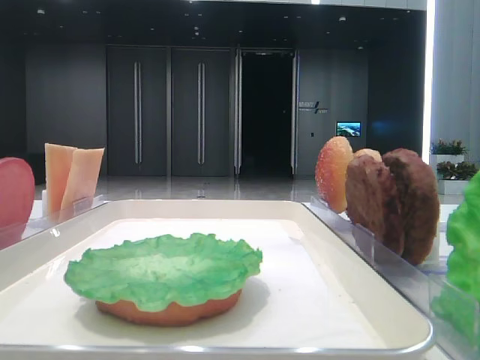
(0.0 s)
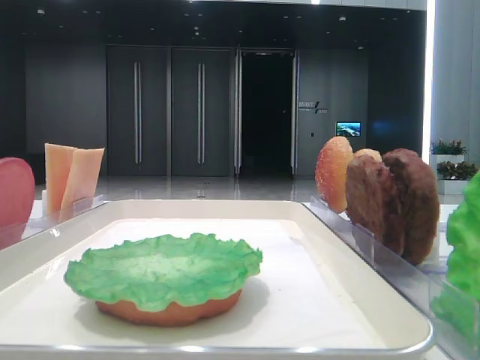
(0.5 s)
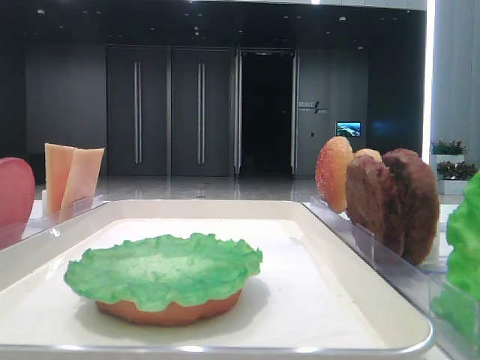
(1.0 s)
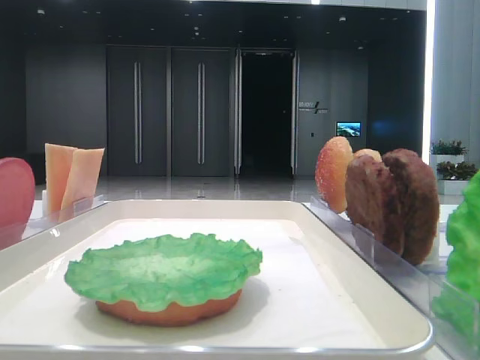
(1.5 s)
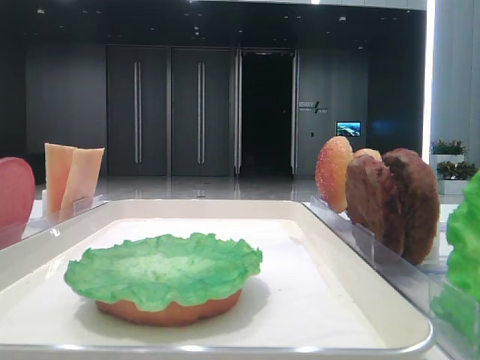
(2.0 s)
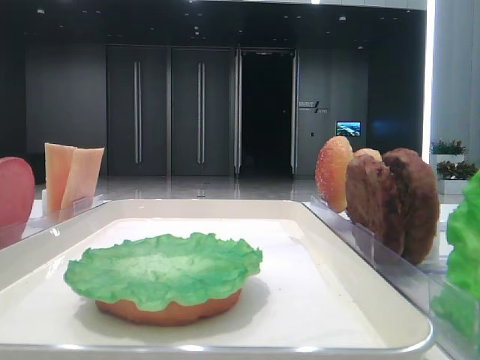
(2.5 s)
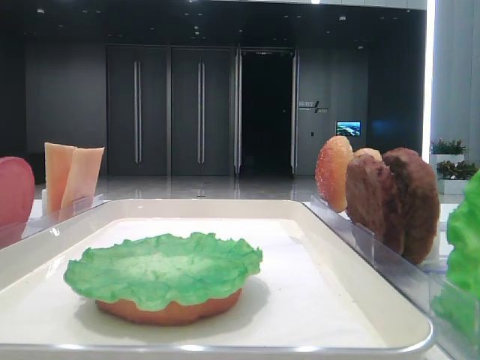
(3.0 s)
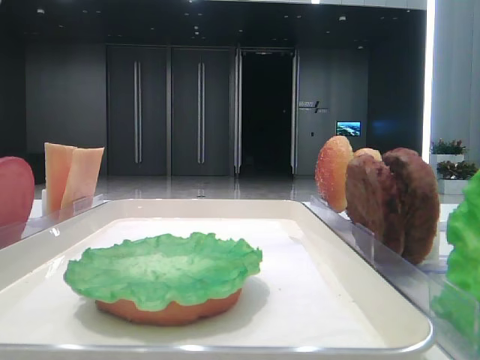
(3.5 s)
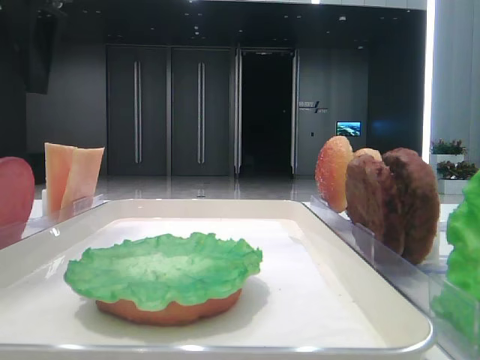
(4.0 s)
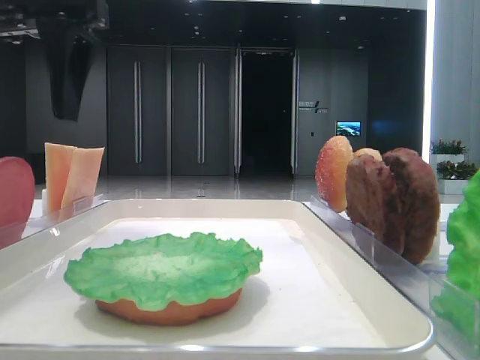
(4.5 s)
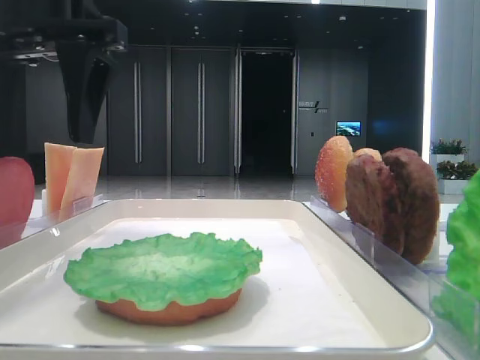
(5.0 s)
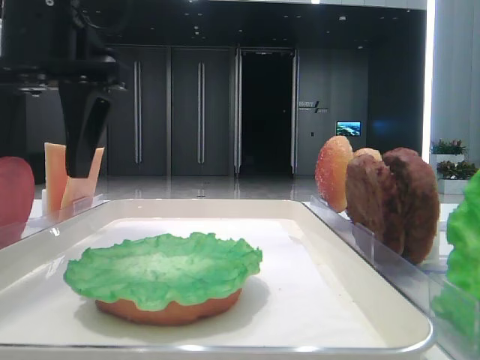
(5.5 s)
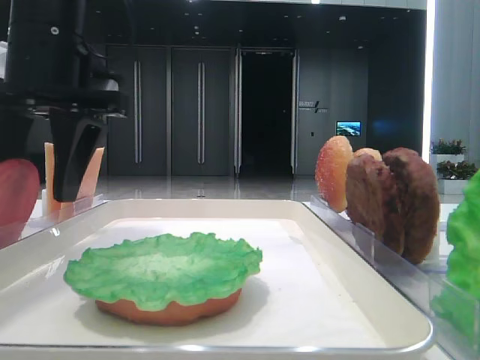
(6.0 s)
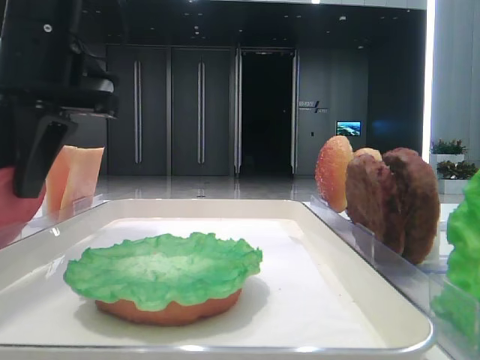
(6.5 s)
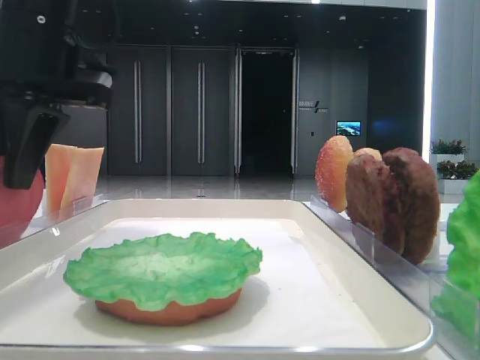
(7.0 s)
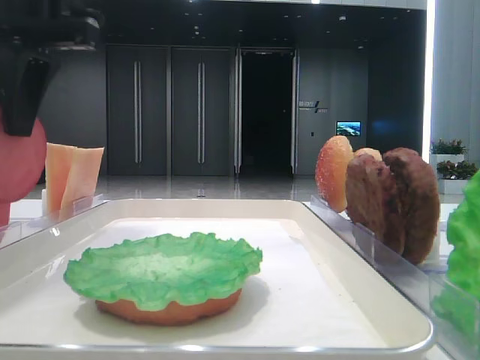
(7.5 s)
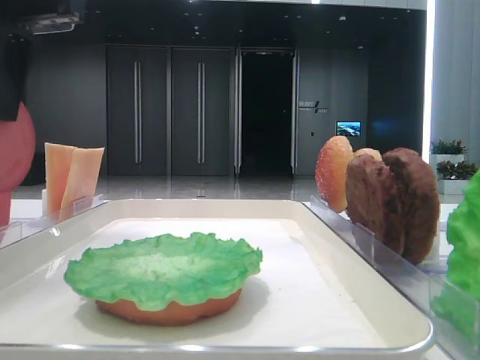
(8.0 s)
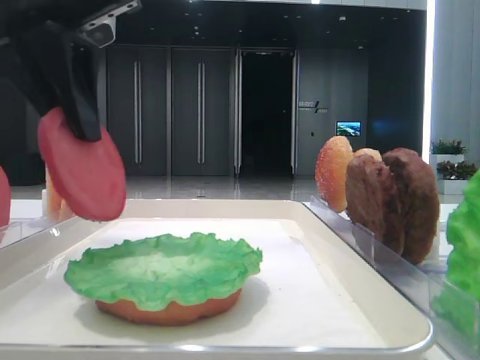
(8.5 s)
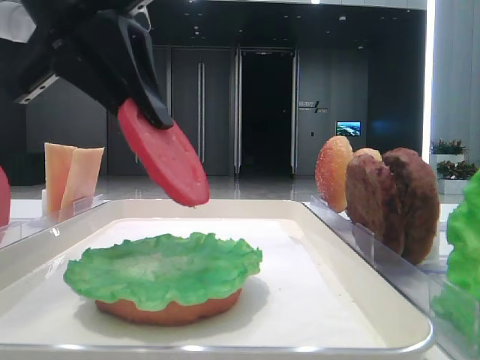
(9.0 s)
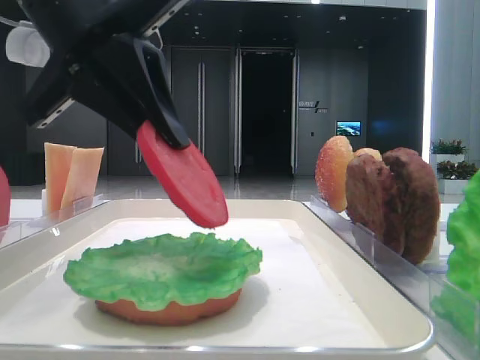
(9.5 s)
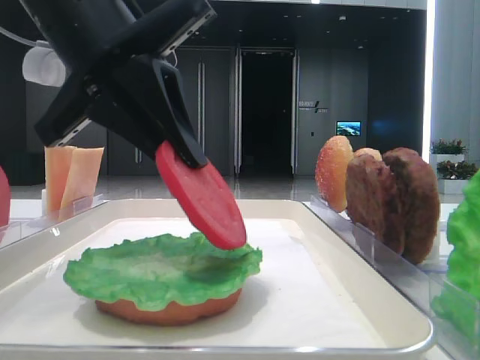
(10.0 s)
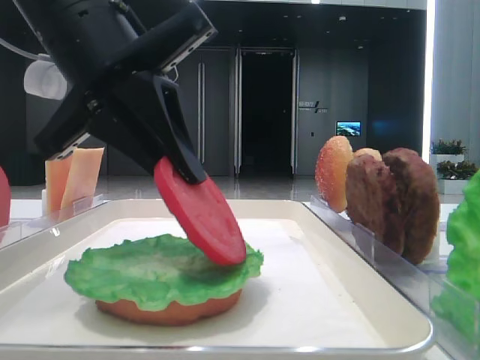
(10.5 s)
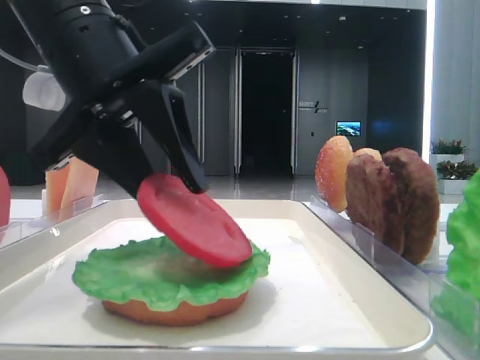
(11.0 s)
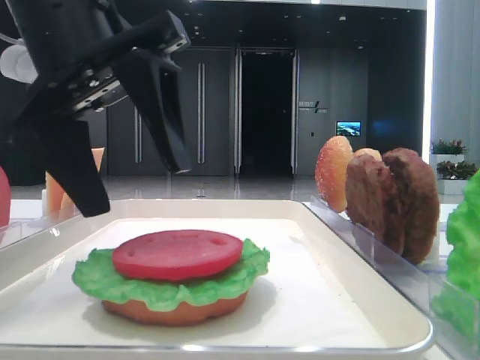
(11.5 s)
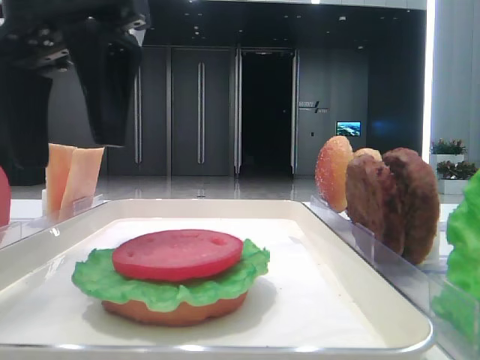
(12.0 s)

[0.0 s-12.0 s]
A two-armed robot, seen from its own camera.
Step, 0.0 to 6.5 s: Pick up the tomato slice with the left hand.
Step, 7.0 to 11.0 s: Place the tomato slice on the lettuce leaf with the left hand.
2.0 to 4.0 s: The left gripper heads forward and to the right, covering approximately 20 cm.
4.0 to 6.0 s: The left gripper goes some 10 cm downward and to the right.
6.0 to 8.0 s: The left gripper heads upward, covering about 5 cm, and closes its fingers.
8.0 to 10.0 s: The left gripper shifts roughly 10 cm to the right and downward.
10.0 to 12.0 s: The left gripper opens its fingers.

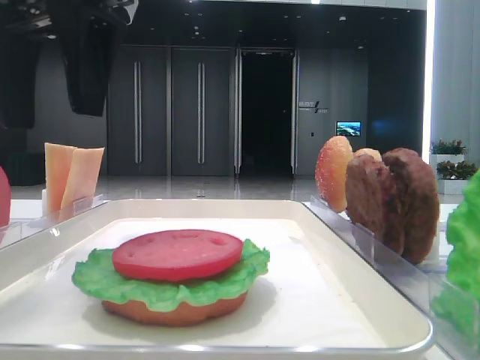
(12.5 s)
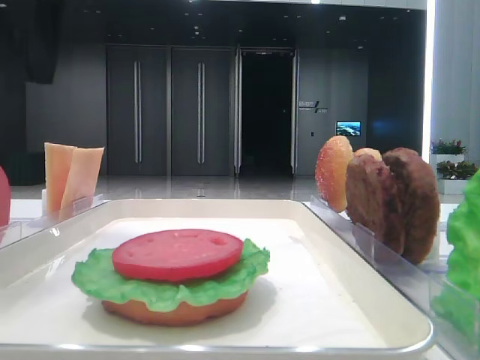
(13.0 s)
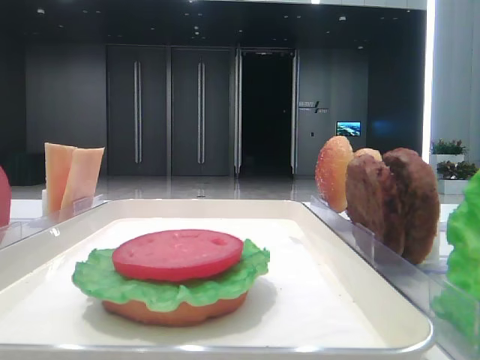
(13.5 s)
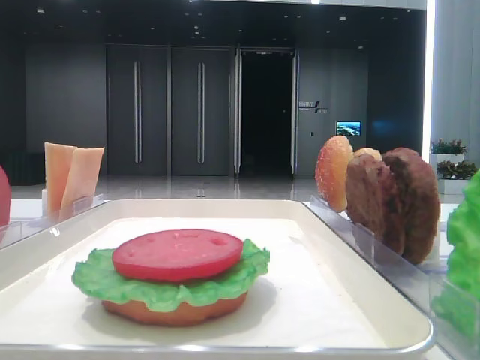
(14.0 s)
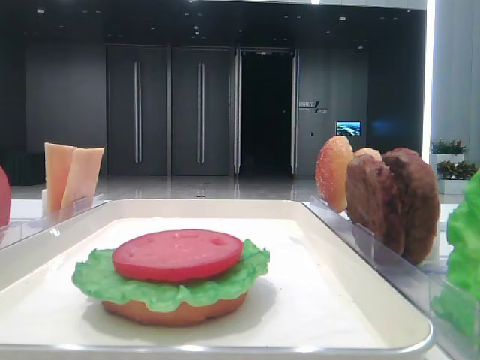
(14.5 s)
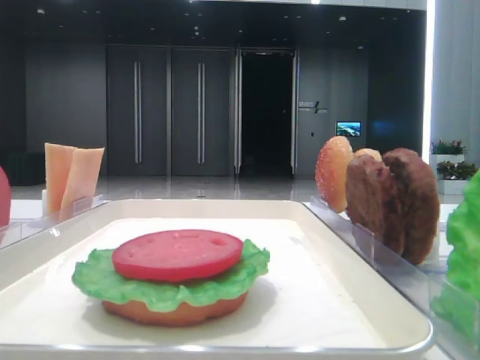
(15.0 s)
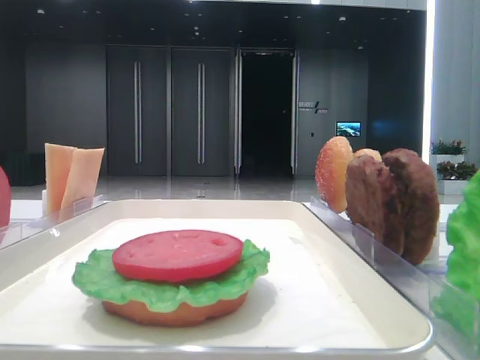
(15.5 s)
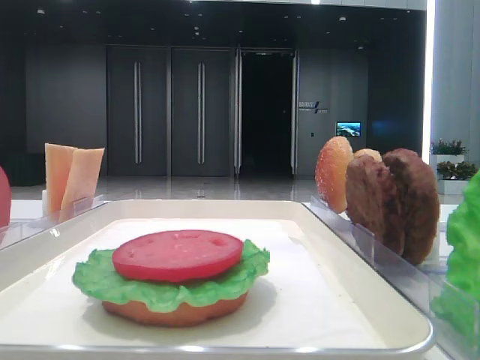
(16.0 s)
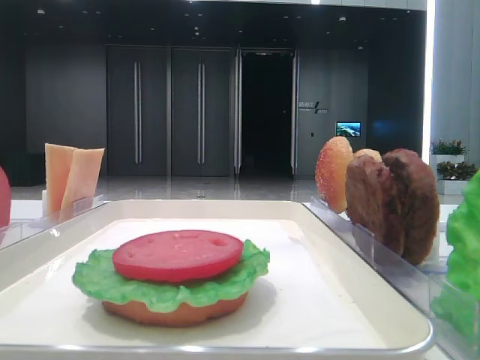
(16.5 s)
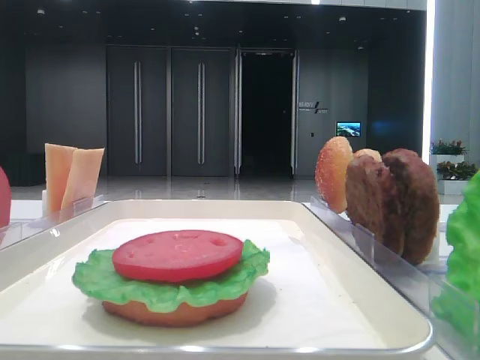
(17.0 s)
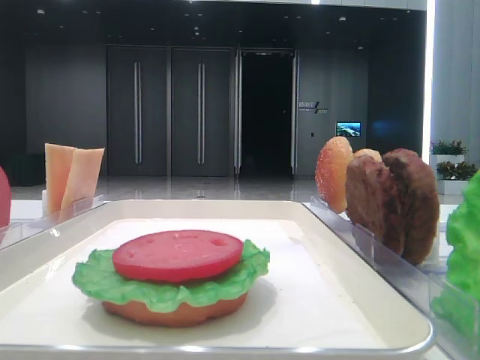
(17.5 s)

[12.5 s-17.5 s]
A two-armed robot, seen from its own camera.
12.5 to 15.0 s: The left gripper is displaced to the left and backward by about 25 cm.

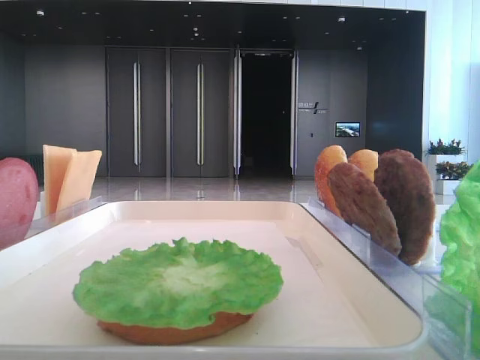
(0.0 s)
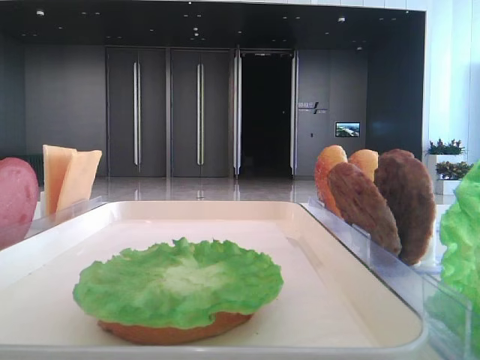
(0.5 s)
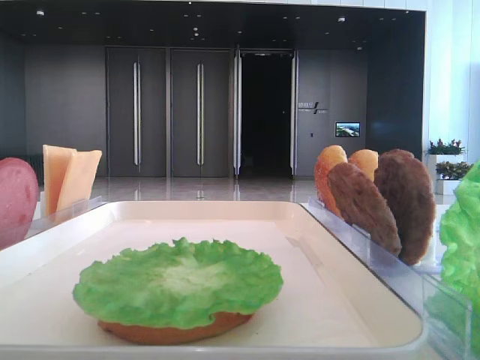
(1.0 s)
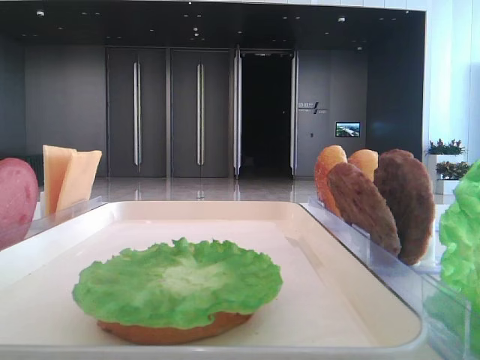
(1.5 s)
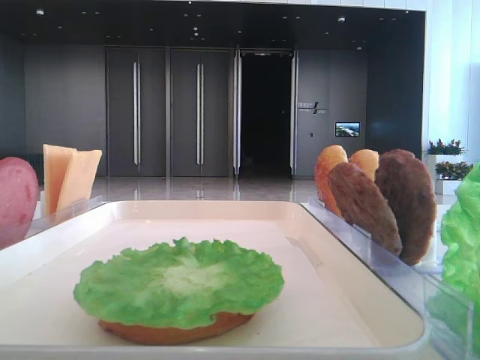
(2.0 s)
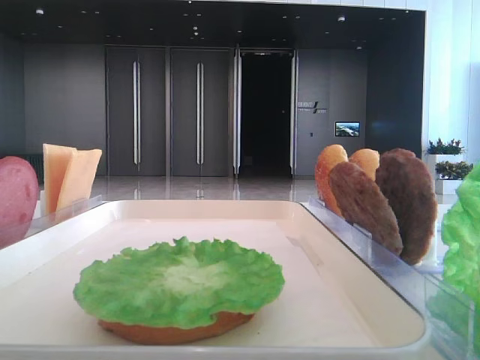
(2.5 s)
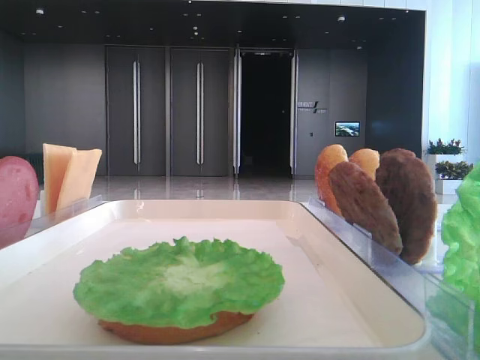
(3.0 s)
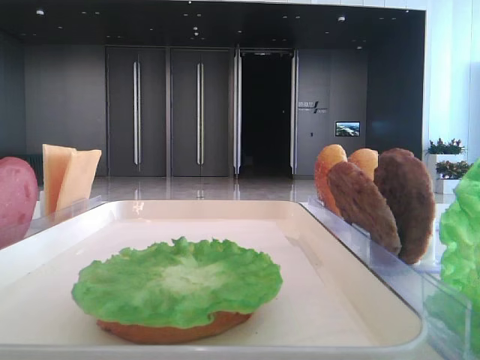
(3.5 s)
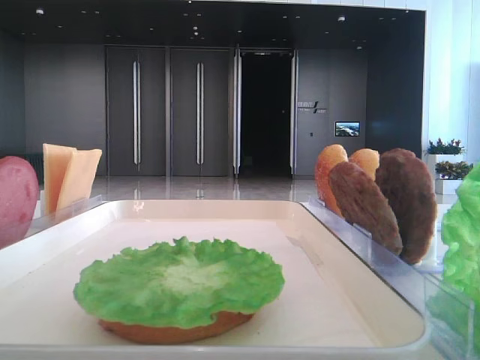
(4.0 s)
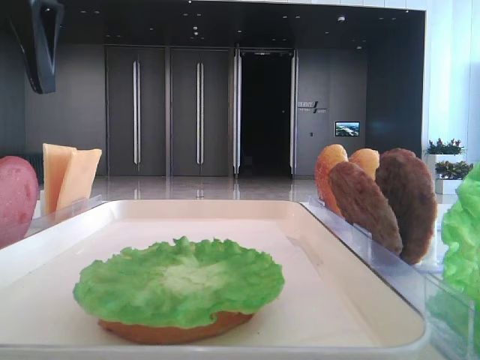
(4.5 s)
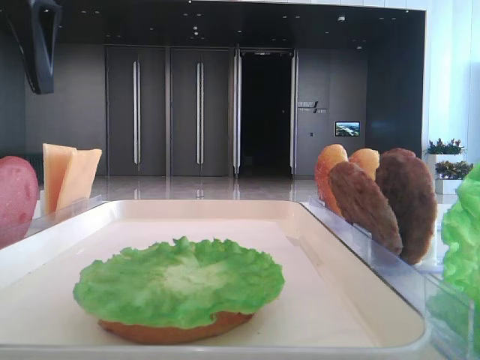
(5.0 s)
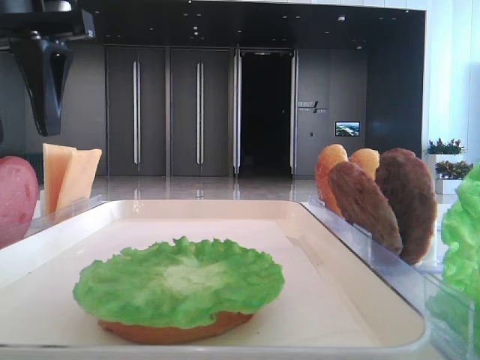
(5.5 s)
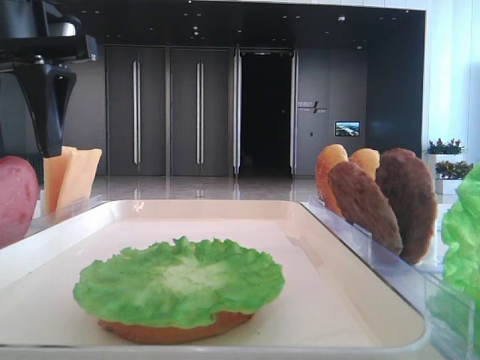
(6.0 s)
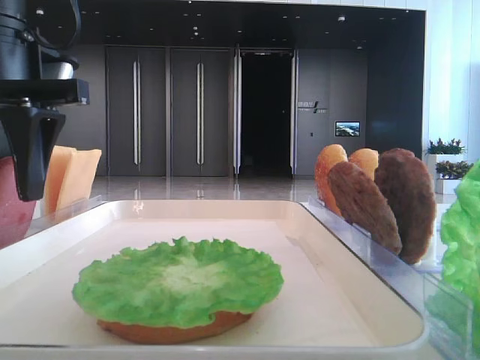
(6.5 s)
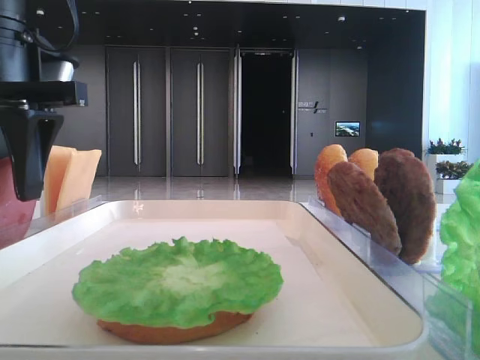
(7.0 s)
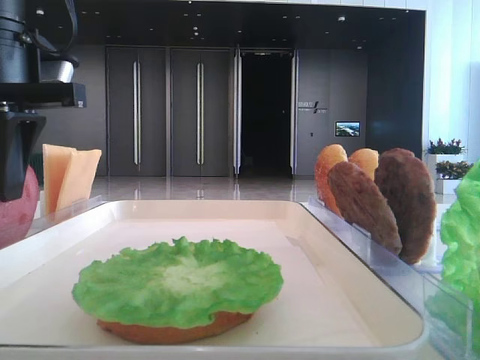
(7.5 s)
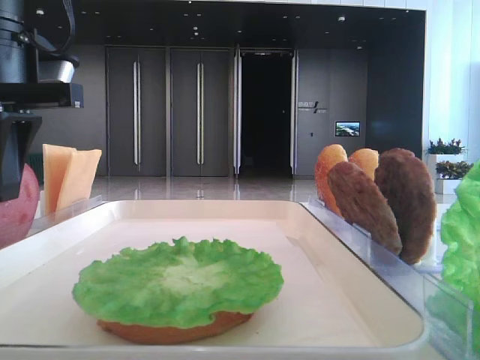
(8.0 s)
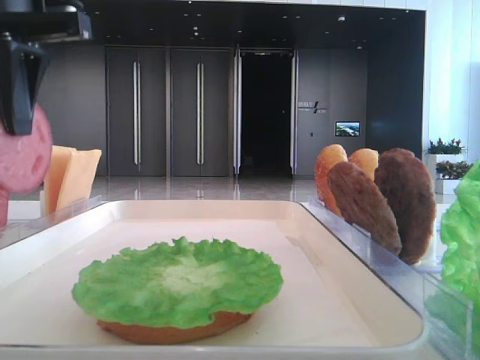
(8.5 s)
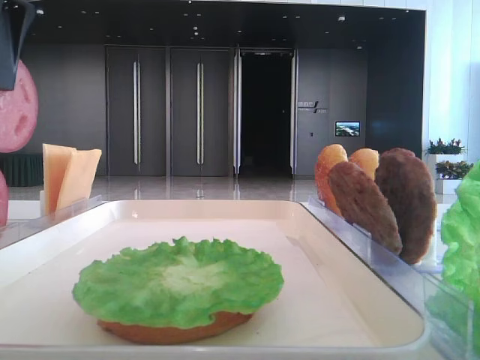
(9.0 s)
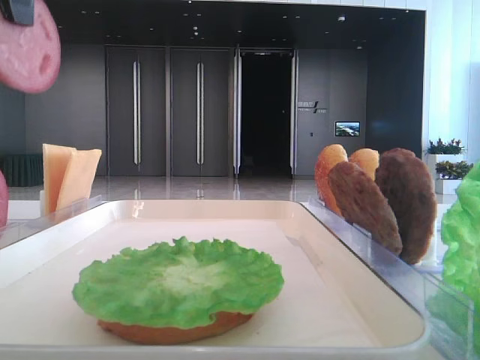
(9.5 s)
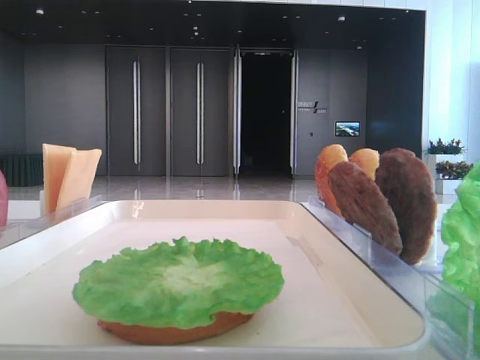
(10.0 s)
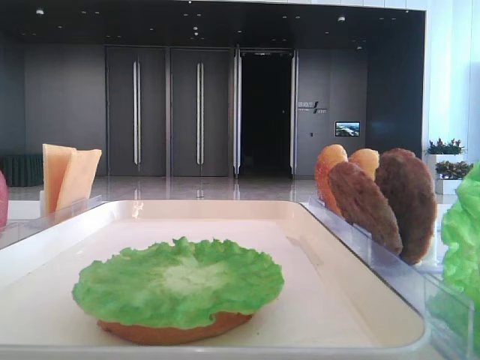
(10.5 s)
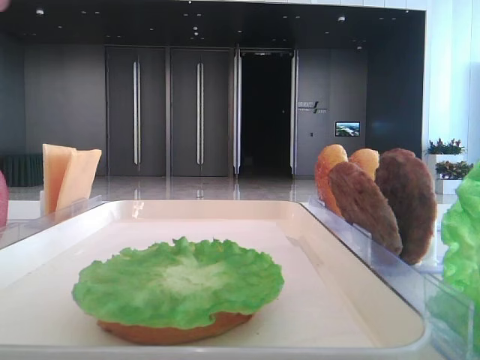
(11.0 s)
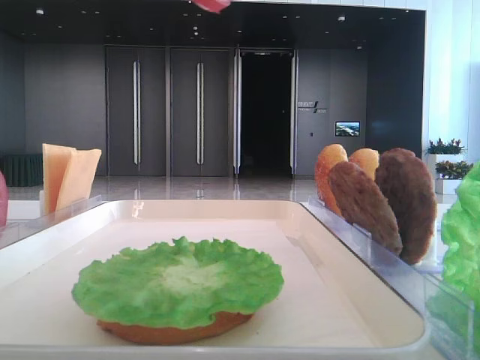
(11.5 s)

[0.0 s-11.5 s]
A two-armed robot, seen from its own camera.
Step, 0.0 to 7.5 s: Pick up the tomato slice with the left hand.
4.0 to 6.0 s: The left gripper goes approximately 10 cm to the right.
6.0 to 7.5 s: The left gripper closes up.
7.5 to 9.5 s: The left gripper heads upward, covering approximately 15 cm.
9.5 to 11.5 s: The left gripper shifts approximately 5 cm backward.
